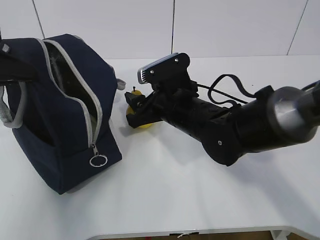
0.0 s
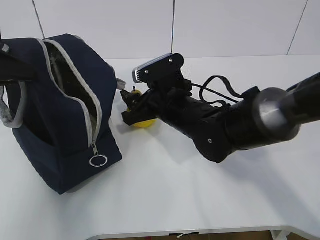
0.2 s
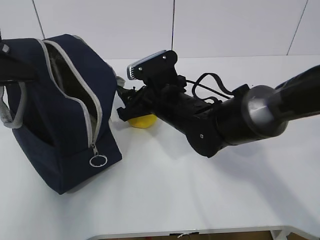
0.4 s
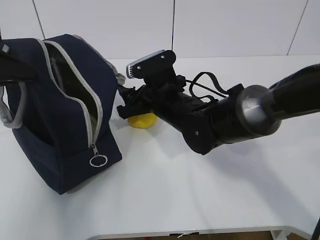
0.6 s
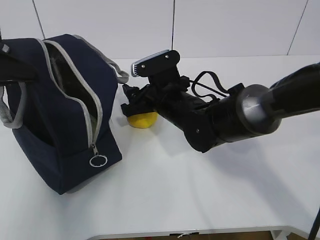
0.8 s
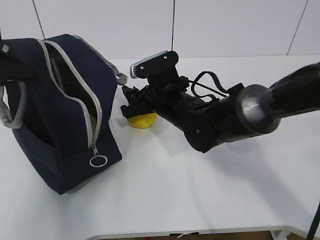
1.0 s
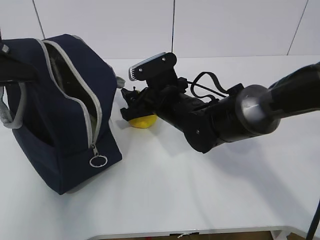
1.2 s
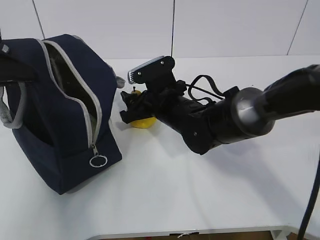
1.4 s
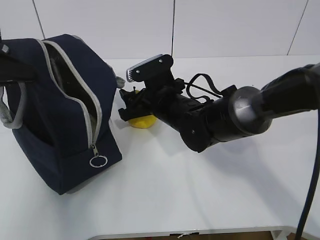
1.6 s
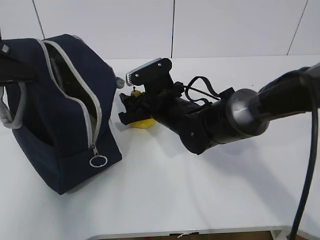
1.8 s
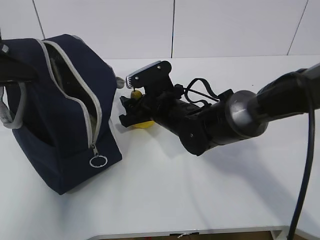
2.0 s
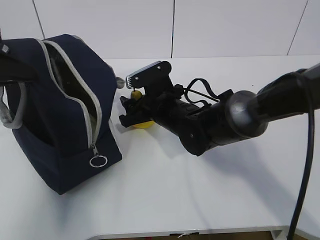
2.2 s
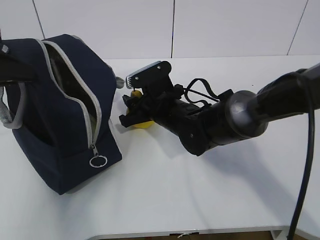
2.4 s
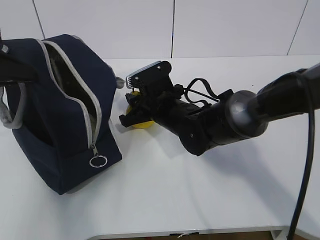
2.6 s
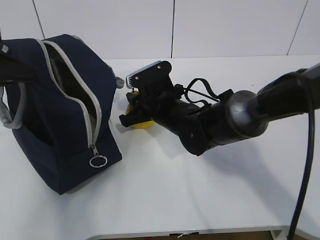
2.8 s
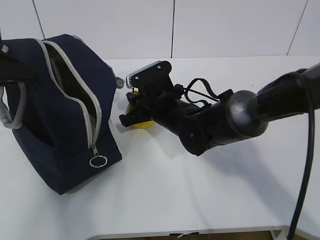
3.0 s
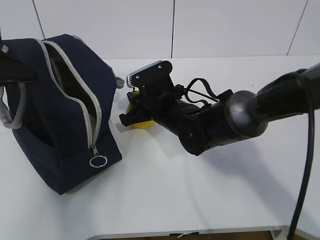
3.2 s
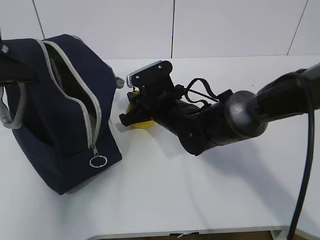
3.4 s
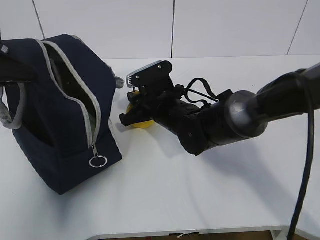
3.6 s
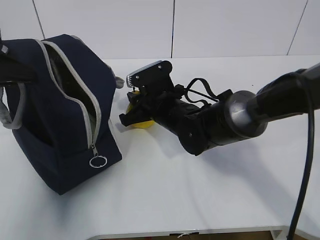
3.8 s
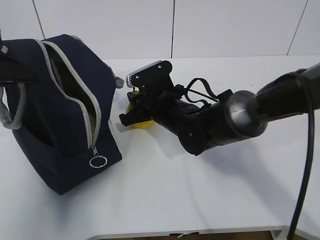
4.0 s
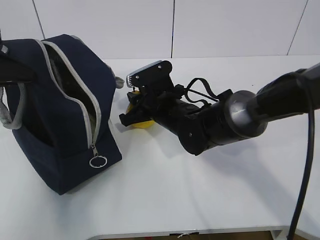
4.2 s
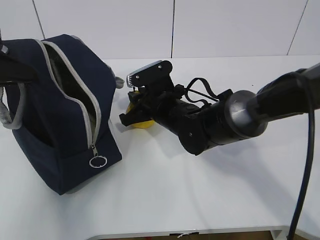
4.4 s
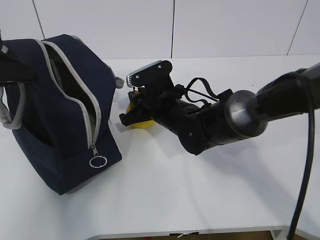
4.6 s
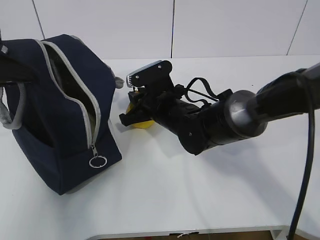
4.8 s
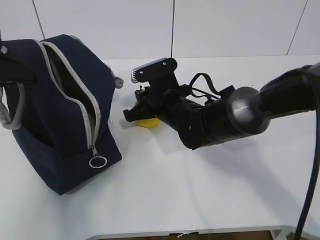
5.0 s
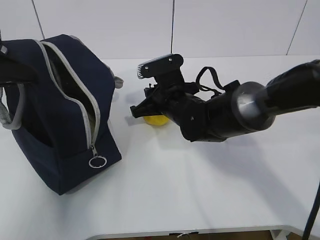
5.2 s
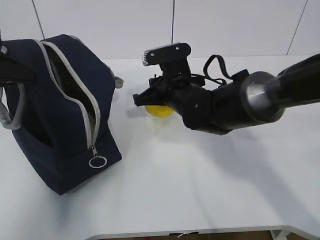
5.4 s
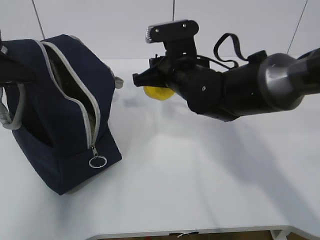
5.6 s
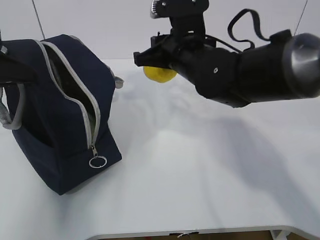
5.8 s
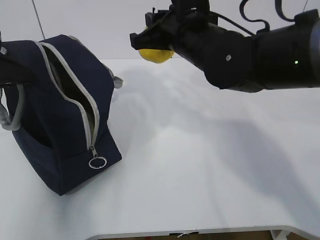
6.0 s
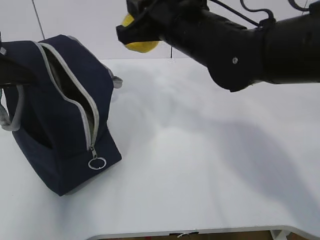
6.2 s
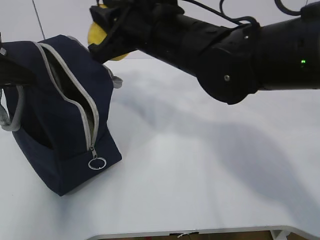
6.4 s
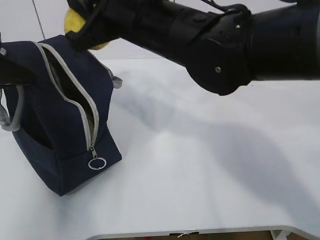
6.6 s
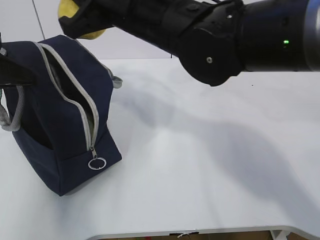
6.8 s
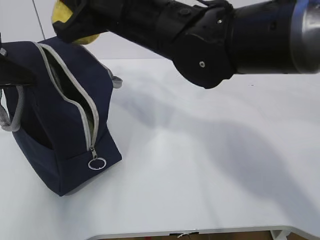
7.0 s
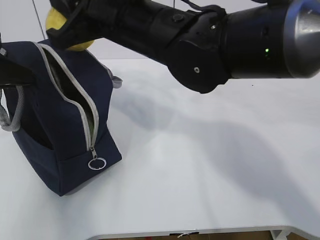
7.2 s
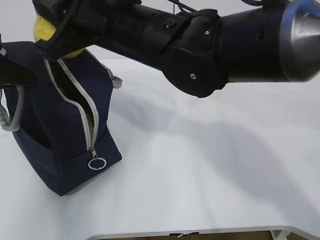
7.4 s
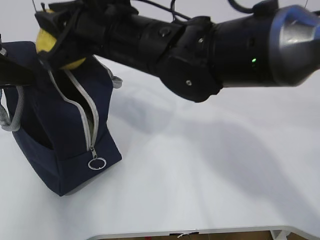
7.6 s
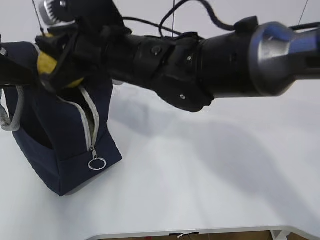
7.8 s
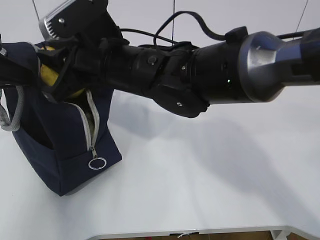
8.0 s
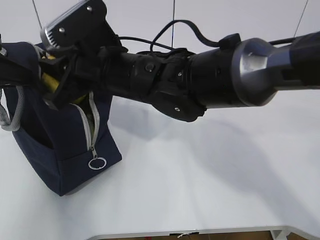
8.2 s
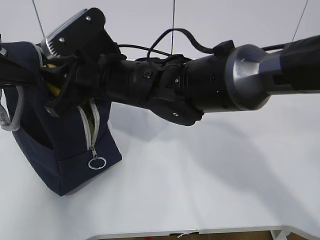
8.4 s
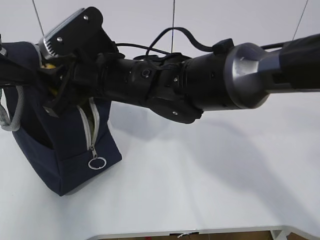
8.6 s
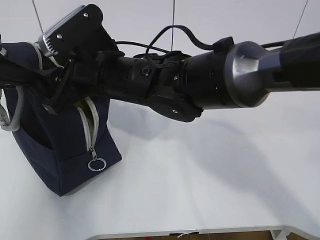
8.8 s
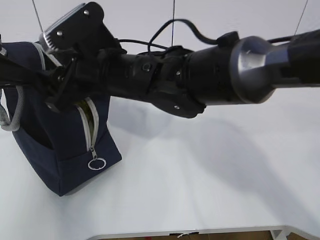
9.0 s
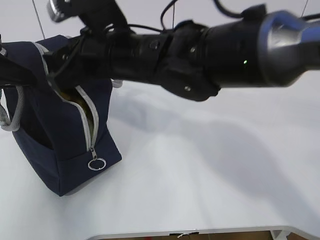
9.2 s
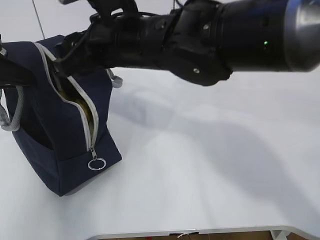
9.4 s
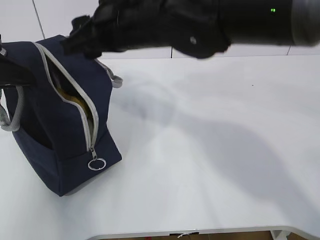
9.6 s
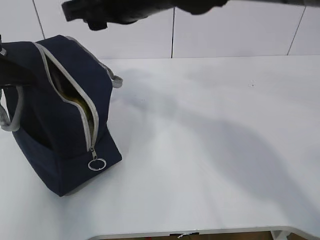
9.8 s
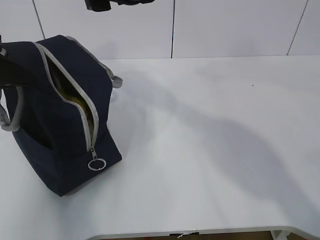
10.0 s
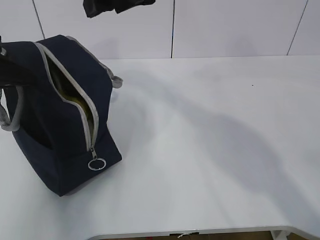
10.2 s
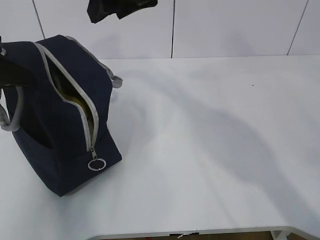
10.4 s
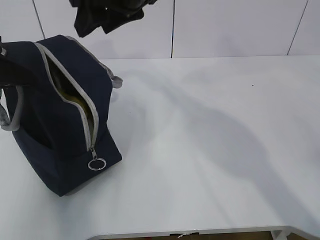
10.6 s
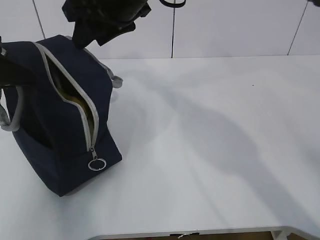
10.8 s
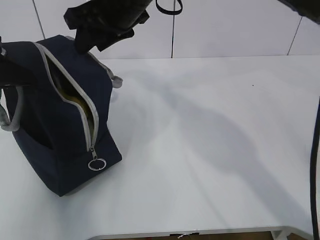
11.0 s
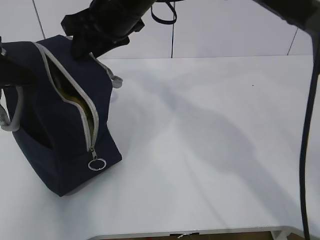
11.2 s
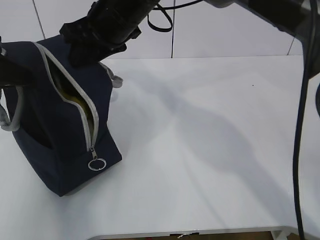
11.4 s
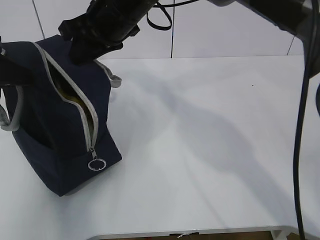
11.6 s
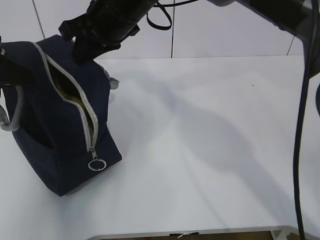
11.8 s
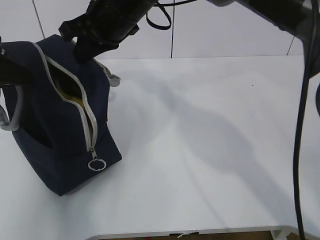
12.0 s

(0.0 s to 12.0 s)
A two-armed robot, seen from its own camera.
Step, 1.4 s - 3.6 s: Grab the lunch bag with your right hand.
Step, 7.0 s - 9.2 s: Move the lunch bag to the right.
0.0 s - 1.6 s: The right gripper ends up approximately 5 cm from where it was.
1.6 s - 3.0 s: The right gripper closes up.
3.0 s - 4.4 s: The two grippers keep their place.
4.4 s - 6.0 s: The right gripper is displaced upward by roughly 15 cm.
6.0 s - 7.6 s: The right gripper travels to the left by about 10 cm.
7.6 s - 9.0 s: The right gripper moves downward, about 5 cm, and opens up.
9.0 s - 10.4 s: The right gripper heads upward and to the right, covering about 15 cm.
10.4 s - 12.0 s: The right gripper travels downward by some 5 cm, and closes.

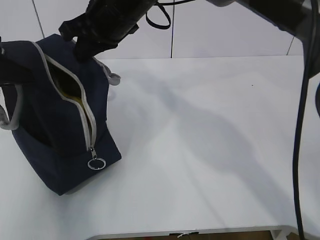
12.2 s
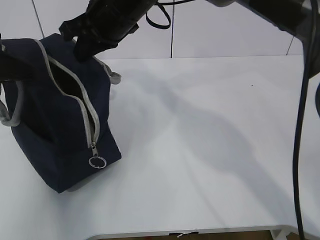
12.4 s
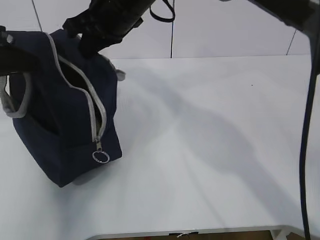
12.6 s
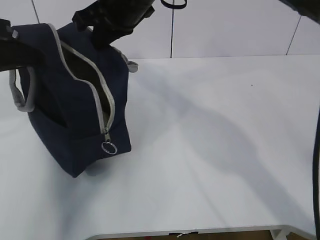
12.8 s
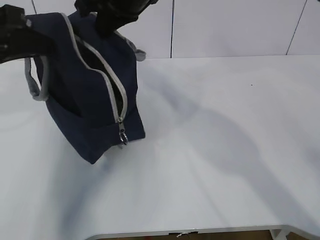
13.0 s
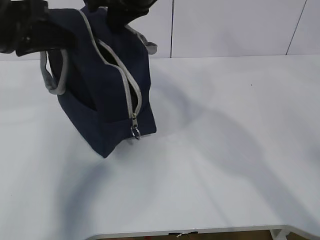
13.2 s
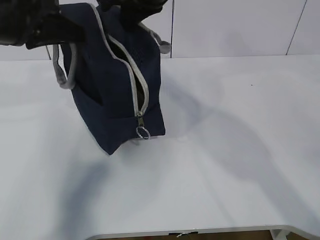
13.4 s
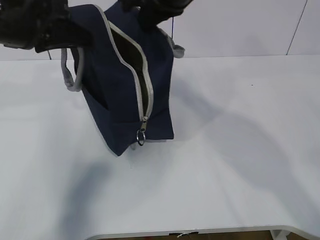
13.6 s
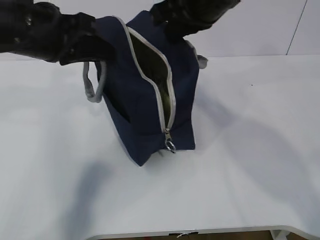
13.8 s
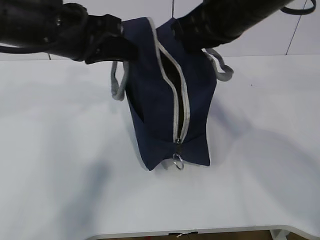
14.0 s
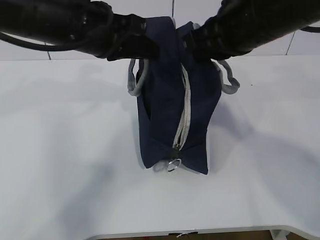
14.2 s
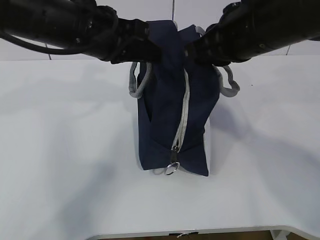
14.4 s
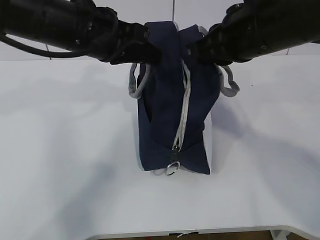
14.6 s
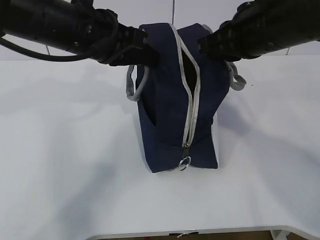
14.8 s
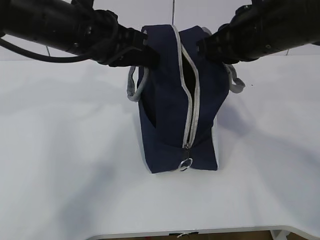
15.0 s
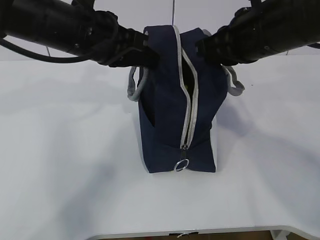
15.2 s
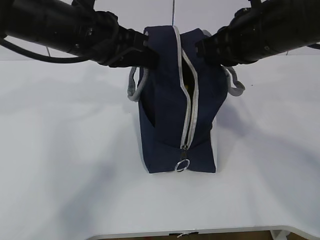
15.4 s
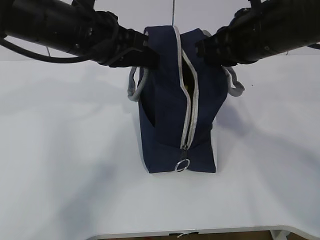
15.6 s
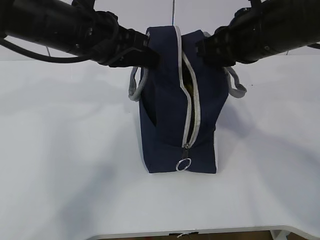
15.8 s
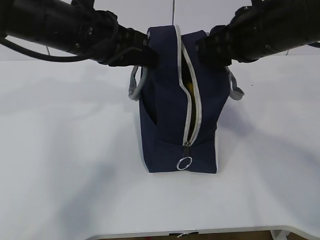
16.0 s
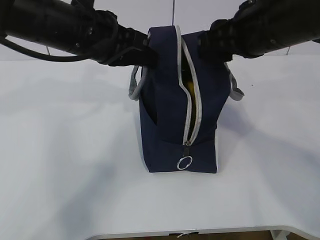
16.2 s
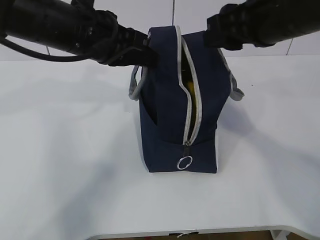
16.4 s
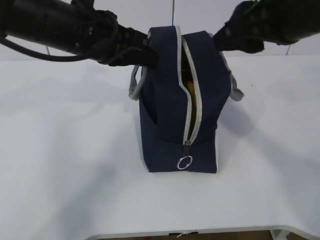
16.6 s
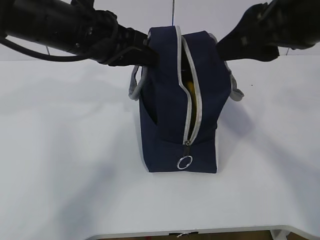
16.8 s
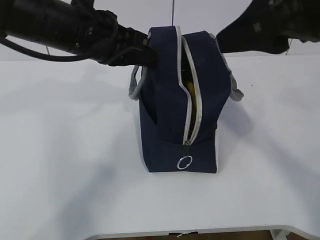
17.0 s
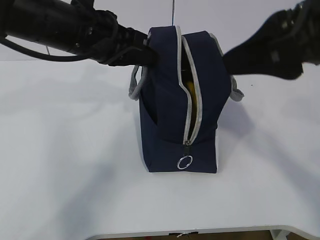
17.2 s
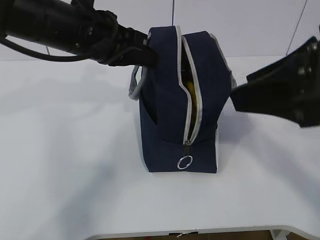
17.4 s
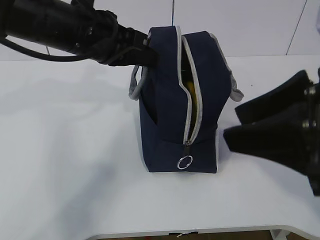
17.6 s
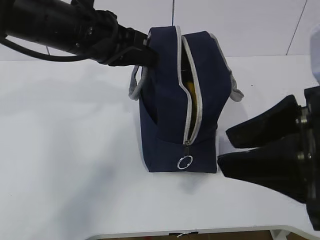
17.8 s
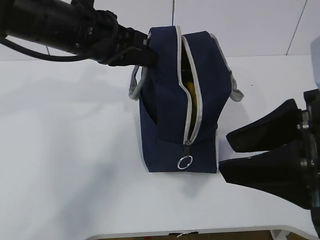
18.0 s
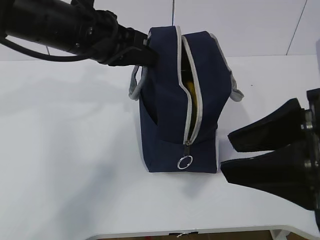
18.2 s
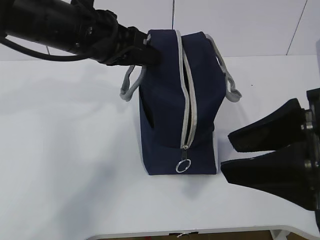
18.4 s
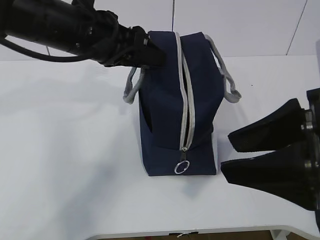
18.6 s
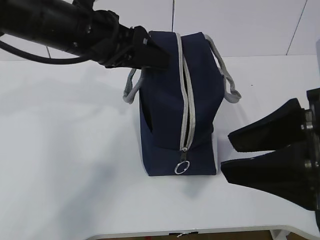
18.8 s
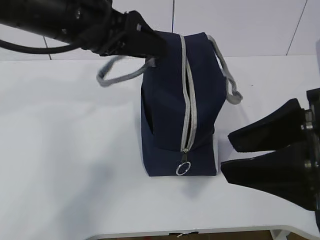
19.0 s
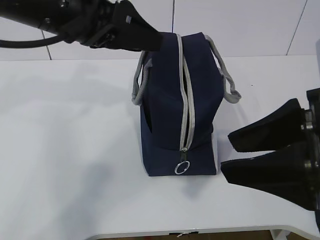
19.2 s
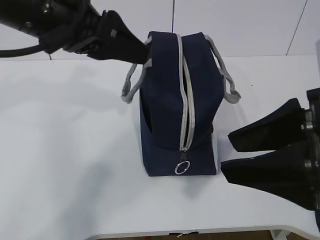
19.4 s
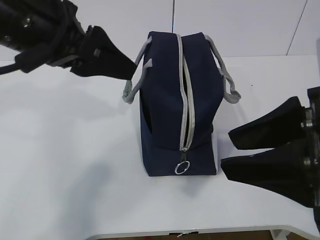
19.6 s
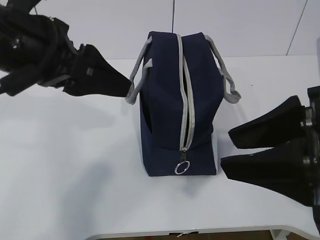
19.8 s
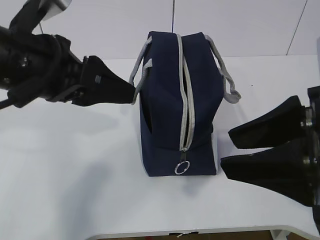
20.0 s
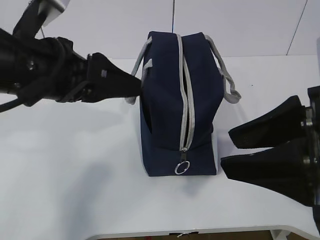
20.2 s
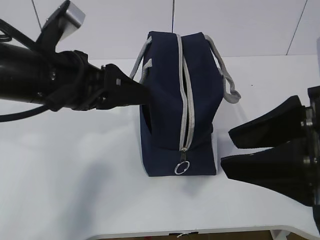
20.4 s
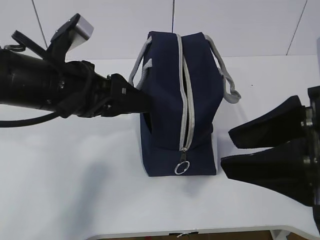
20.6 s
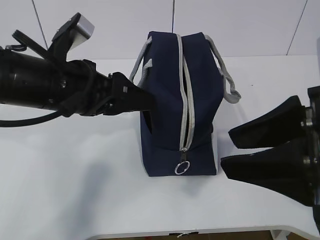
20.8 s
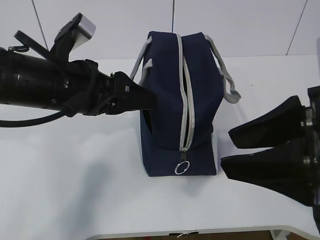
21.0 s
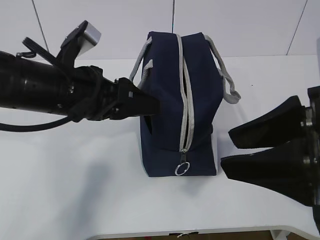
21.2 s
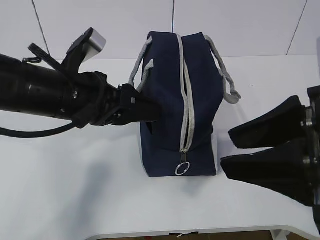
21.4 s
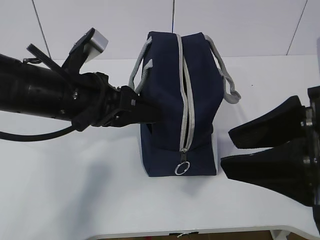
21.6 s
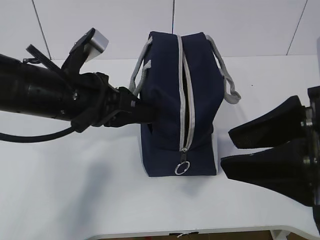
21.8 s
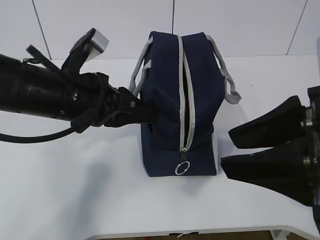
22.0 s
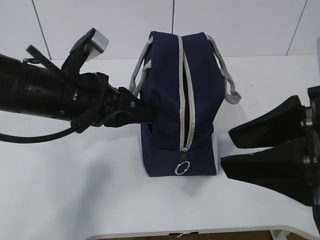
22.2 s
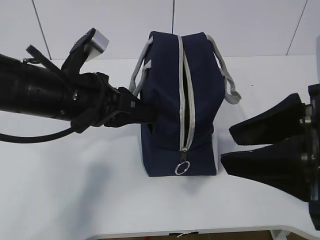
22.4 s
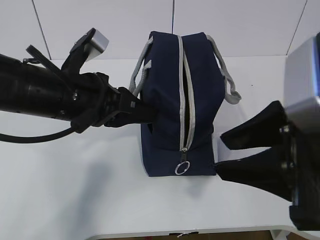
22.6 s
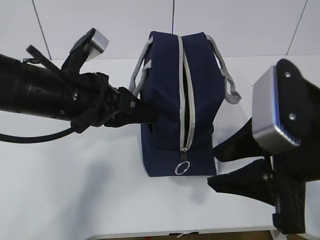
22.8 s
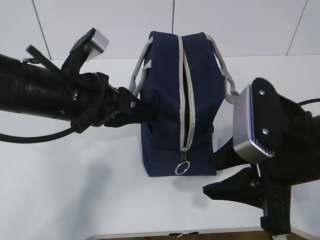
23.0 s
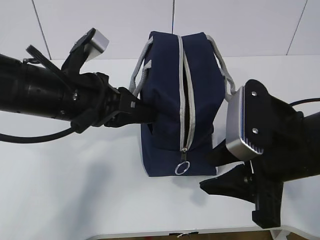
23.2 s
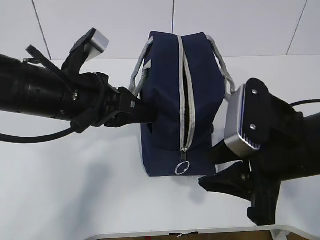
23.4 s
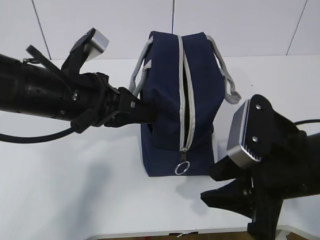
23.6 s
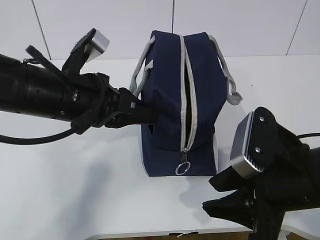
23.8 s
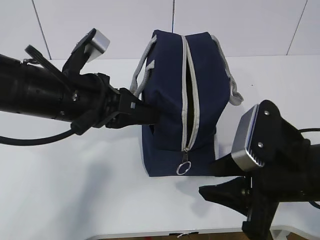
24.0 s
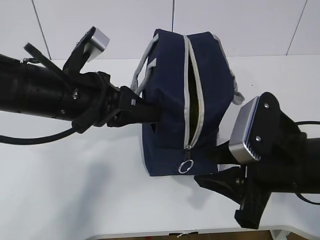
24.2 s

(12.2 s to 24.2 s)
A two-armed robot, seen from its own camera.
12.2 s - 13.8 s: The left gripper is displaced to the right by about 10 cm, while the right gripper goes approximately 15 cm to the right and backward.
13.8 s - 15.2 s: The two grippers go roughly 5 cm to the right.
15.2 s - 16.6 s: The right gripper shifts by about 5 cm, and opens its fingers.
16.6 s - 18.2 s: The right gripper heads backward and downward, covering approximately 15 cm.
18.2 s - 19.8 s: The left gripper travels backward by roughly 10 cm, and opens.
19.8 s - 21.2 s: The left gripper moves downward, roughly 10 cm.
21.2 s - 22.6 s: The left gripper closes.
22.6 s - 24.2 s: The right gripper heads downward, covering roughly 10 cm.
